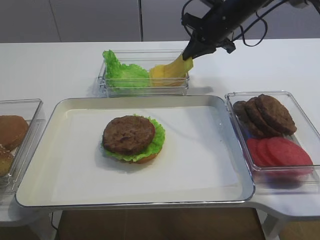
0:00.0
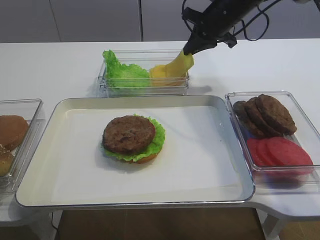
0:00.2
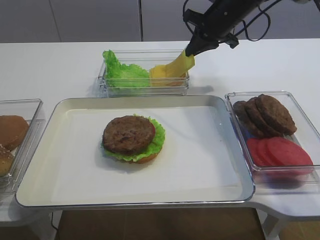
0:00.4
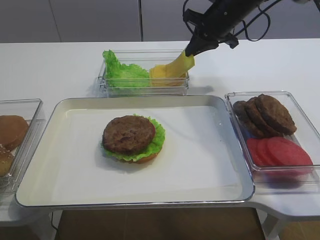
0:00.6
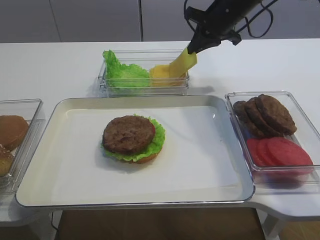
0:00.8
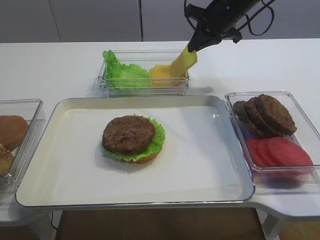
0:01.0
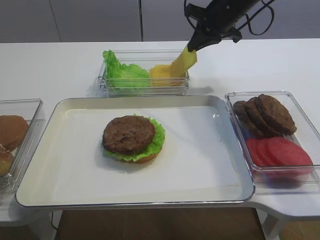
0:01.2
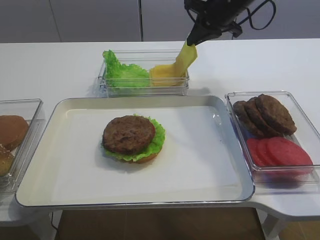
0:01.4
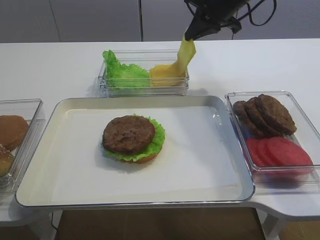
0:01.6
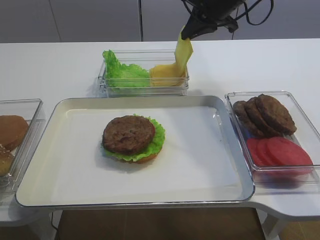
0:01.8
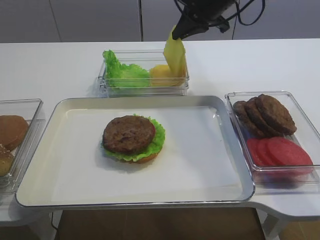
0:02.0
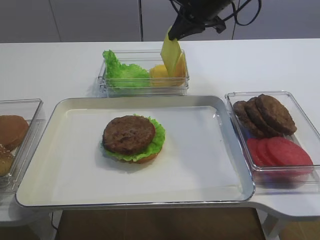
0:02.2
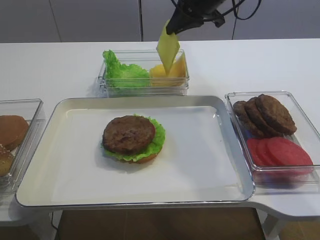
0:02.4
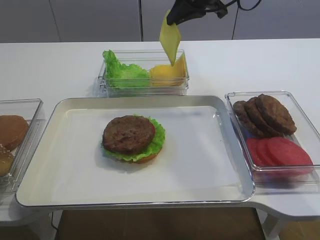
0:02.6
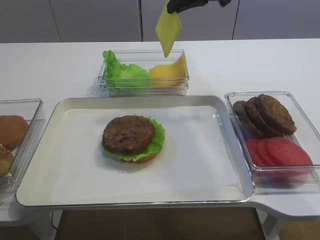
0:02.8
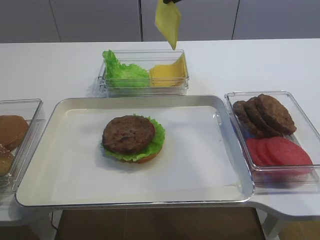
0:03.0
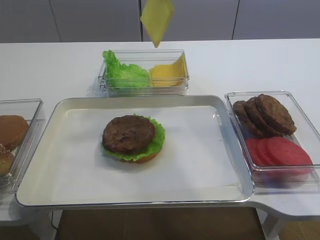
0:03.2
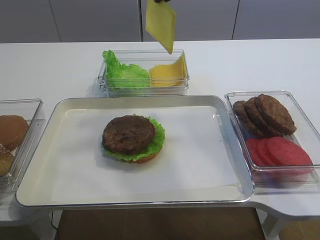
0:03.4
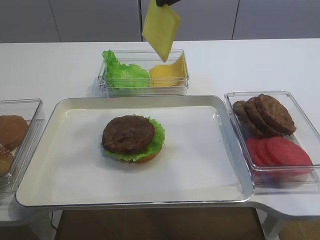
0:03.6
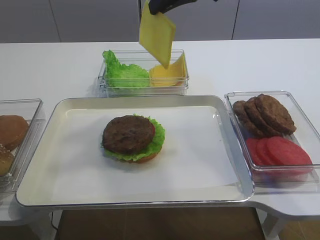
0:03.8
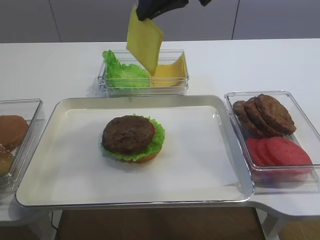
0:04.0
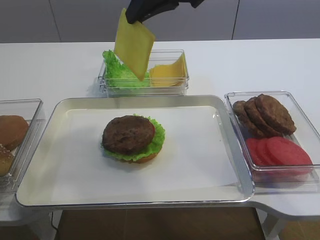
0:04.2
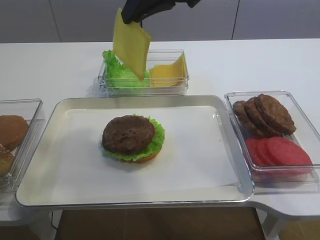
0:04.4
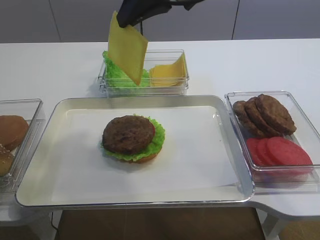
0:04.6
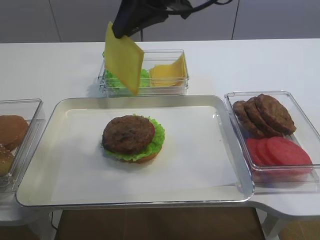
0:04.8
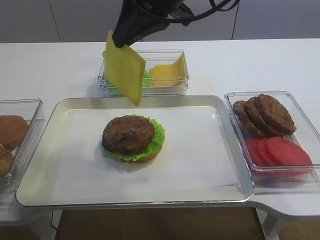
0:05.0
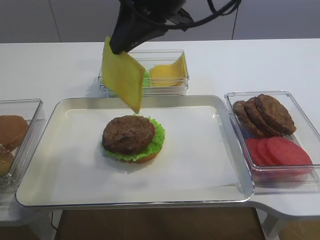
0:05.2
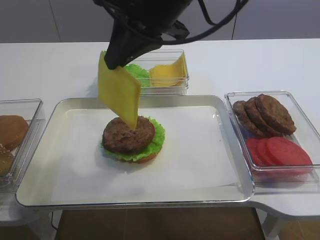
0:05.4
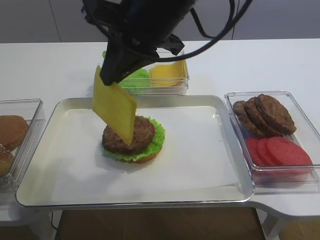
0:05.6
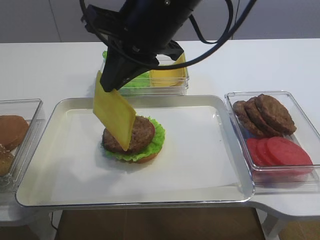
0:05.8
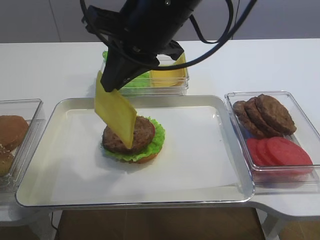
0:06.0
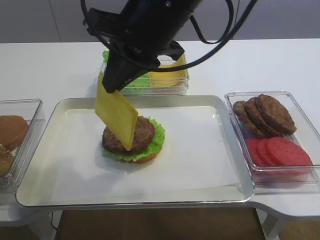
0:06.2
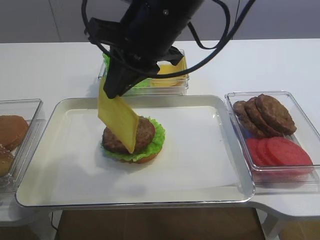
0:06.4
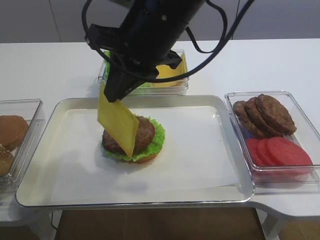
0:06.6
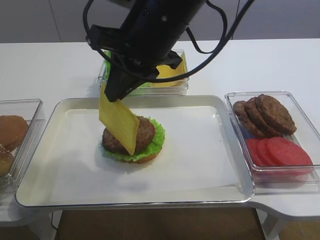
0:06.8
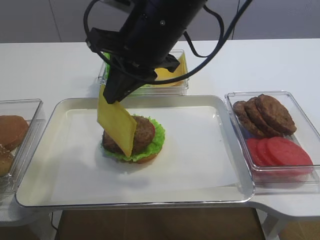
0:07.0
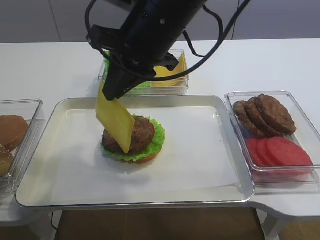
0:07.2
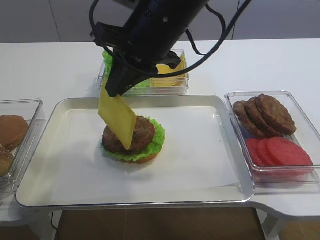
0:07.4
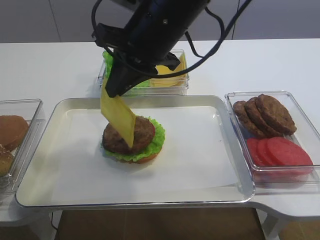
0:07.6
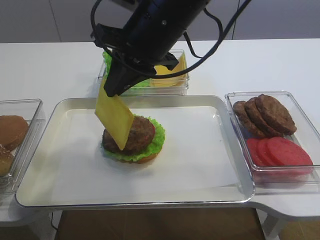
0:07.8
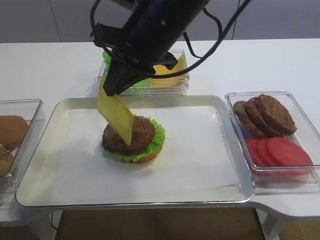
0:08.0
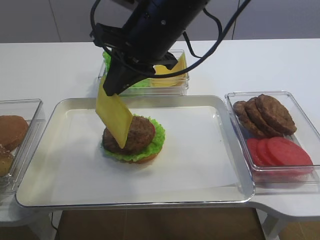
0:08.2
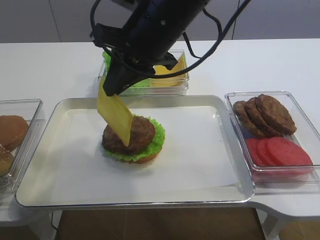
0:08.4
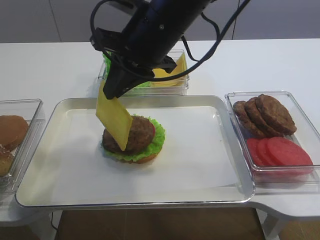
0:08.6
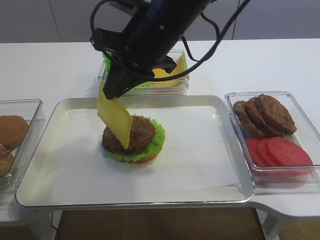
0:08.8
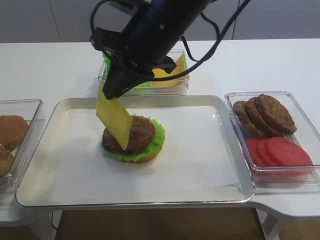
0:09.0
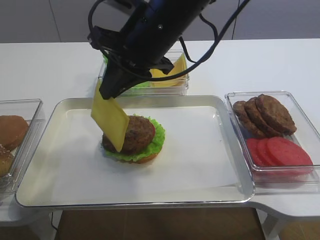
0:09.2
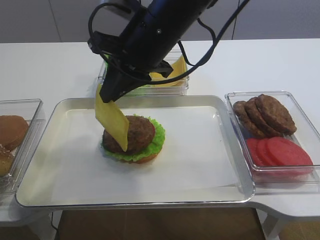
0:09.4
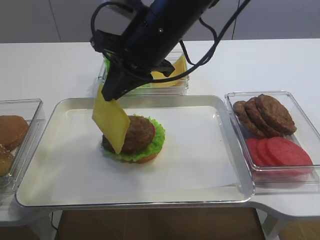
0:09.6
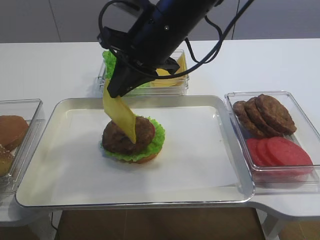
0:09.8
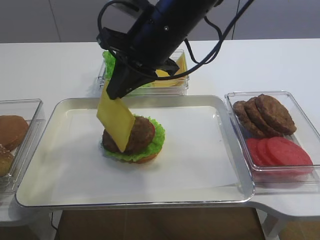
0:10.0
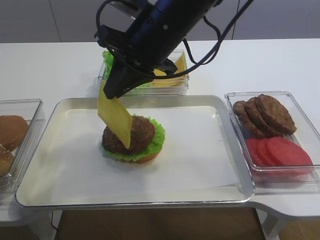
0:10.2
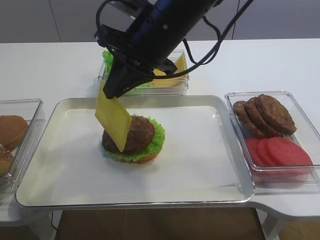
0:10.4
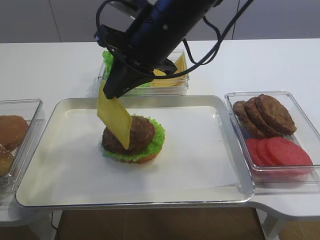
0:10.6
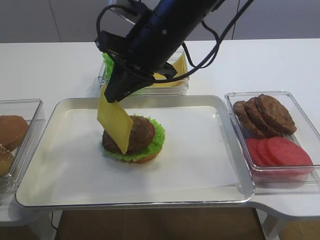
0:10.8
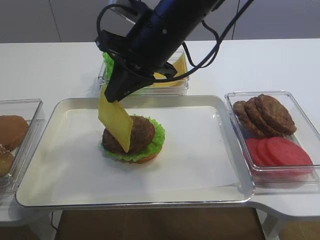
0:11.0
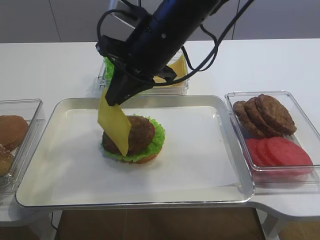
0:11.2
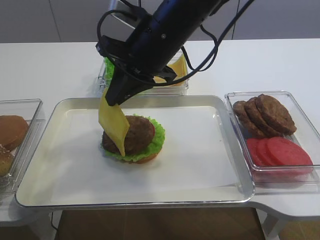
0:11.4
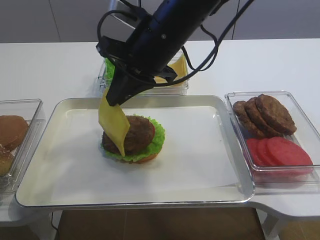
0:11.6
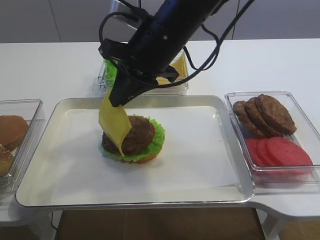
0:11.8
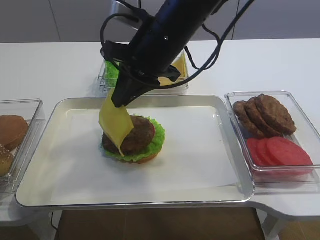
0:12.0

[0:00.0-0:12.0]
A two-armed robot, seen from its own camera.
0:00.0 to 0:01.6: The grippers make only small movements.
0:01.6 to 0:03.0: The right gripper goes roughly 10 cm upward.
0:03.0 to 0:04.4: The right gripper is displaced backward and to the left by about 10 cm.
0:04.4 to 0:06.0: The right gripper travels backward by roughly 5 cm.
0:06.0 to 0:07.6: The grippers make only small movements.
0:07.6 to 0:09.0: Both grippers stay about where they are.
0:09.0 to 0:10.4: The two grippers keep their place.
0:10.4 to 0:12.0: There are only small adjustments of the grippers.

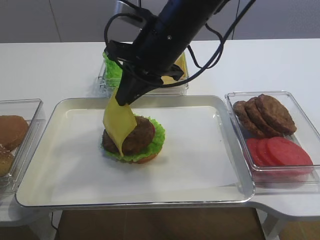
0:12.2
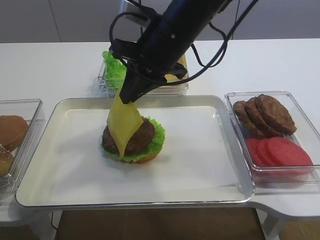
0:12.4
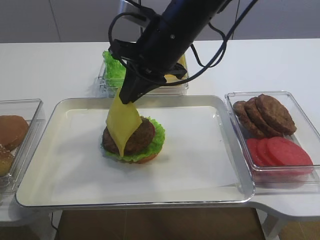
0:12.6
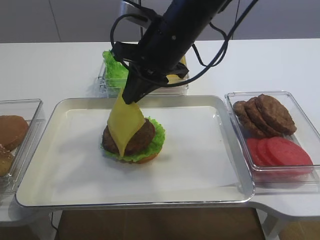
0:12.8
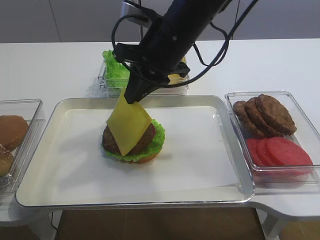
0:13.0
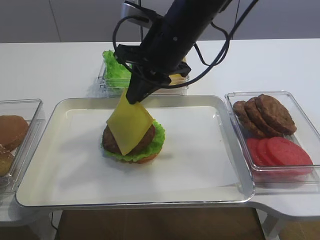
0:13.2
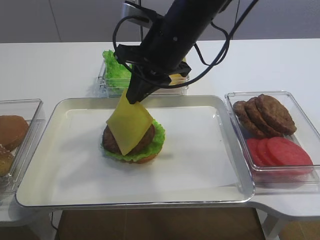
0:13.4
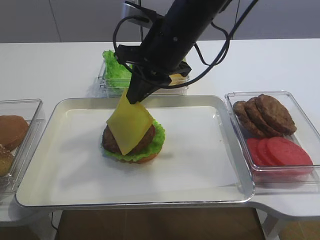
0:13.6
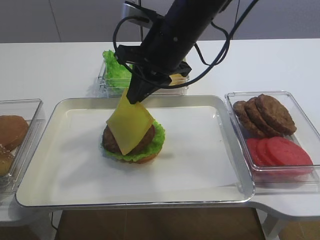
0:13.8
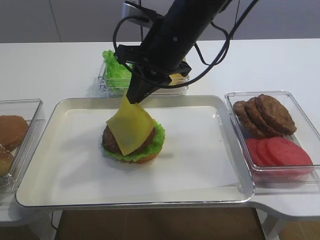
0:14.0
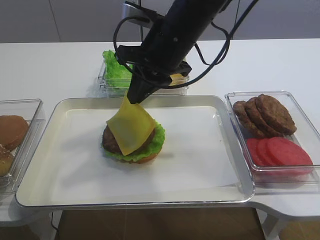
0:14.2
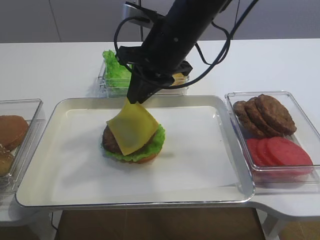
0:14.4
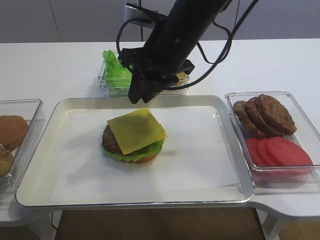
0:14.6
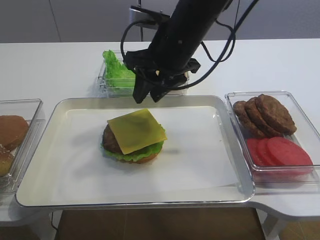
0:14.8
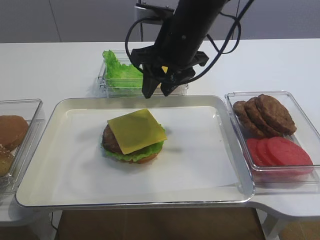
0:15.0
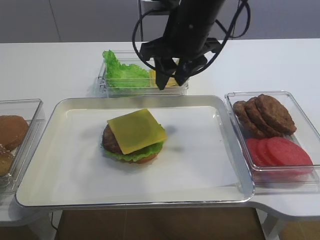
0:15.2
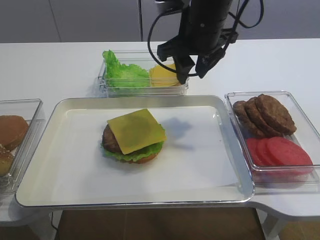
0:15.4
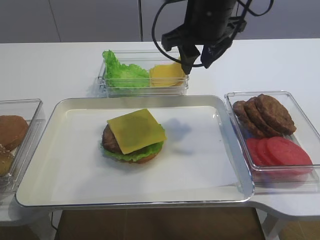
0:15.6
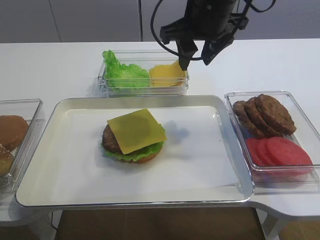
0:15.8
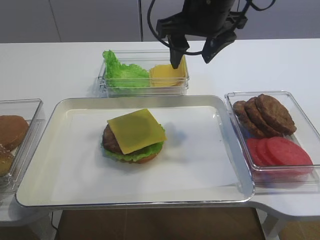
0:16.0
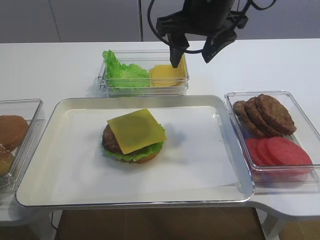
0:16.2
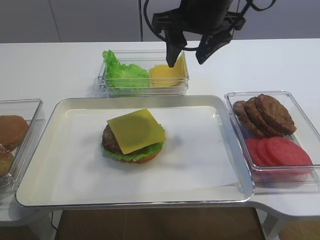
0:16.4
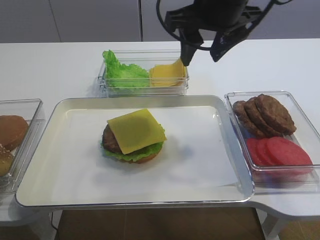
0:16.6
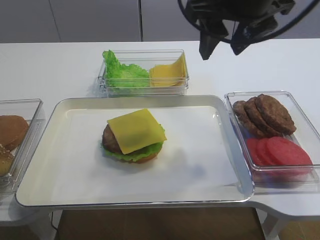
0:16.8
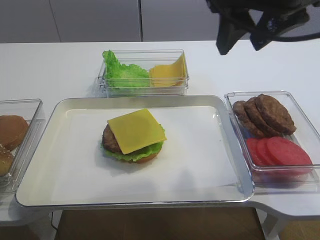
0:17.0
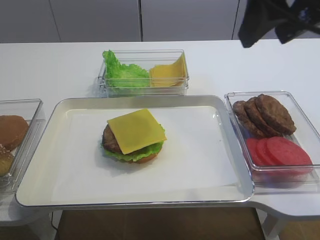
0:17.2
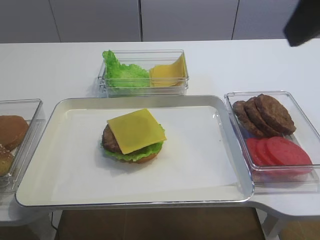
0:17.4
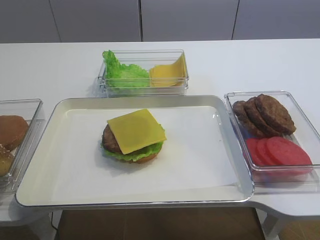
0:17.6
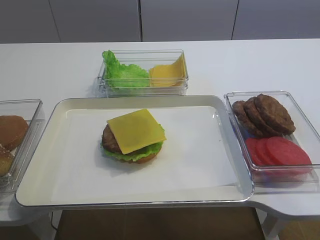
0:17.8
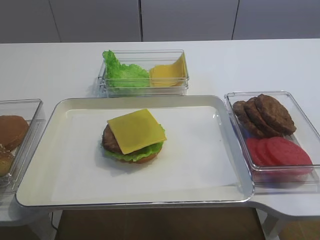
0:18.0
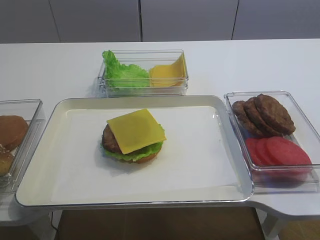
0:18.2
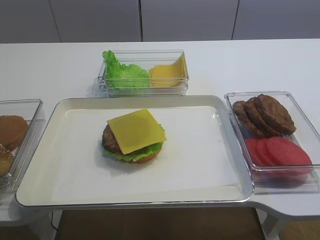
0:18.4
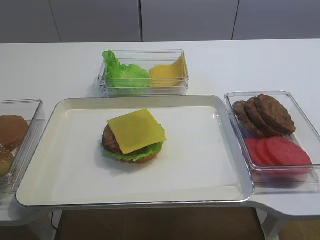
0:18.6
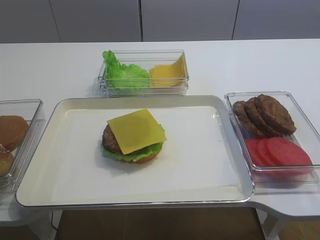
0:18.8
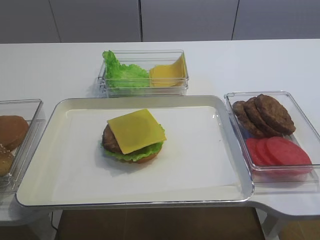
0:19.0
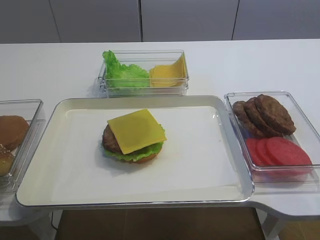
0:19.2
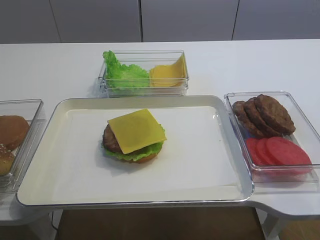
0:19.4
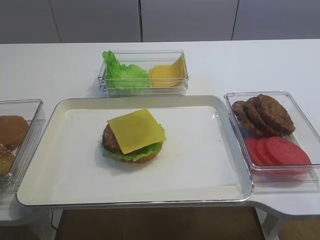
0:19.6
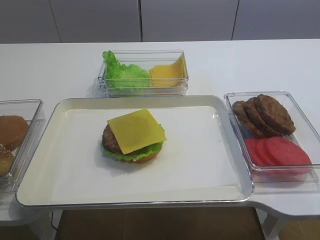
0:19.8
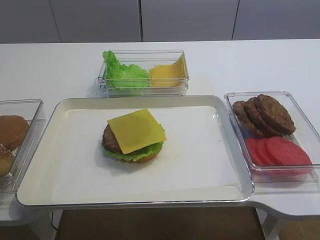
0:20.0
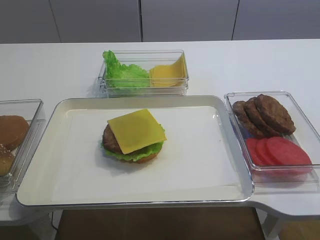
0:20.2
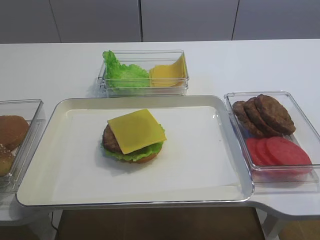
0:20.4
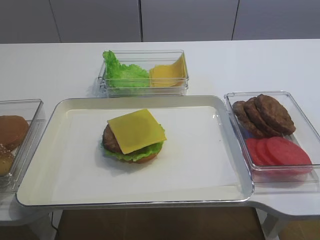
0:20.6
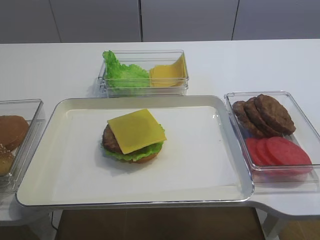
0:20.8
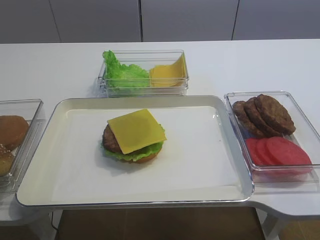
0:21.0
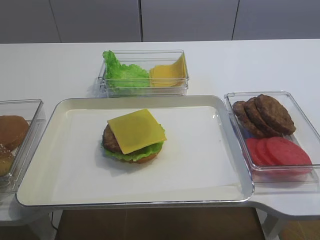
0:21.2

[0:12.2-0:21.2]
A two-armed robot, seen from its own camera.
Step, 0:12.2 to 0:14.8: Place the cheese slice on the cutlet with the right gripper.
0:12.2 to 0:13.8: The grippers stay close to where they were, moving slightly.
0:13.8 to 0:15.2: The right gripper opens.
0:15.2 to 0:16.6: The right gripper travels upward by approximately 5 cm.
0:16.6 to 0:18.2: The right gripper moves backward and to the right, roughly 35 cm.
0:18.2 to 0:19.8: The right gripper heads downward, covering some 10 cm.
0:19.8 to 0:21.2: Both grippers stay about where they are.

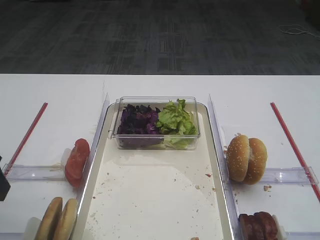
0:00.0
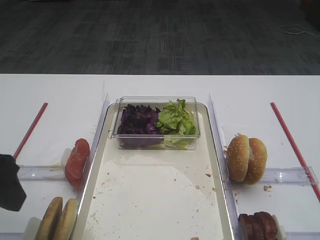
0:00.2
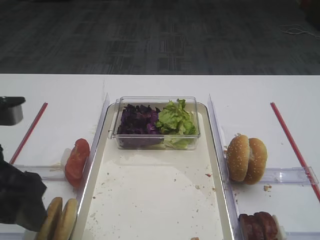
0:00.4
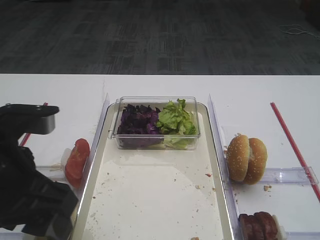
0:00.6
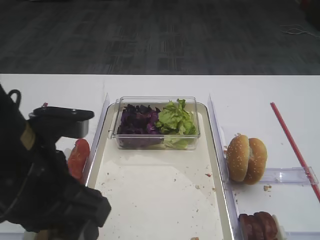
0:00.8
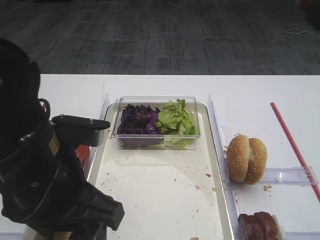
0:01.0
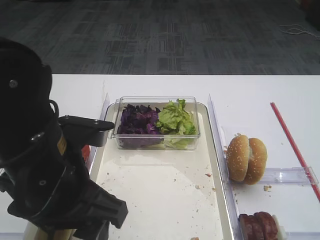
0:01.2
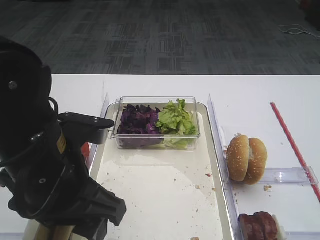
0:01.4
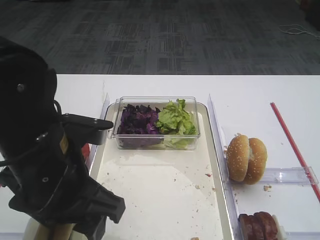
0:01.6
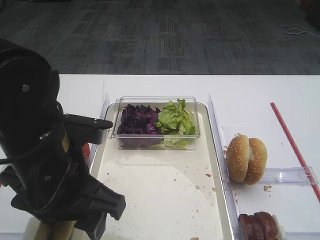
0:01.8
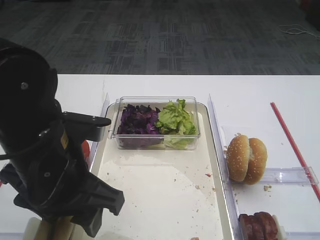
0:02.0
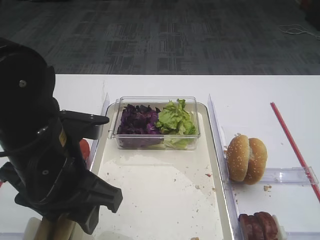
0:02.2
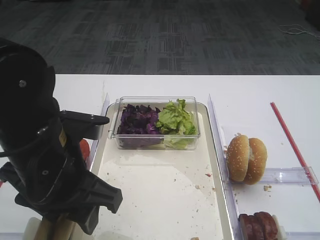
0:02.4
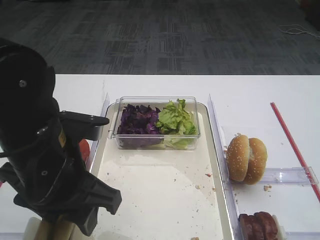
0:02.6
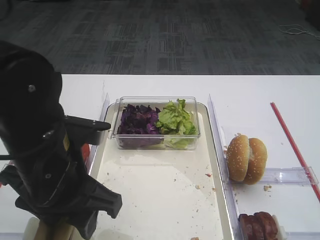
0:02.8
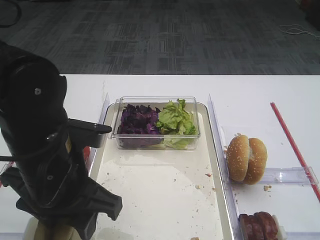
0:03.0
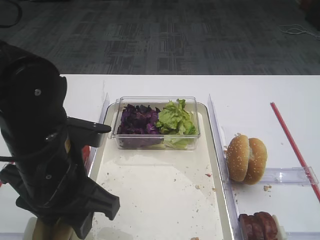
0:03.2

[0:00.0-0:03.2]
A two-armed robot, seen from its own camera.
0:00.0 to 0:01.6: The left gripper moves to the right, approximately 15 cm.
0:01.6 to 0:03.2: The grippers make only small movements.
